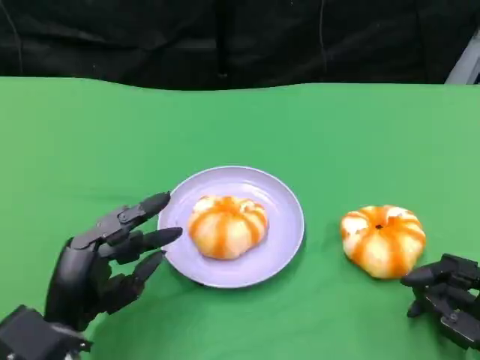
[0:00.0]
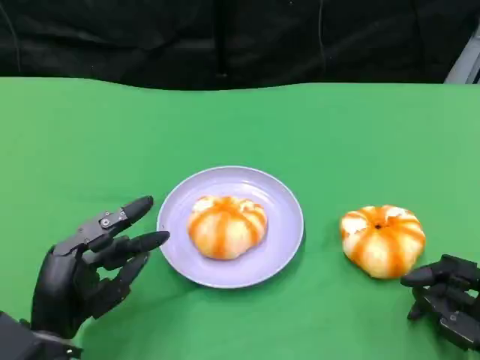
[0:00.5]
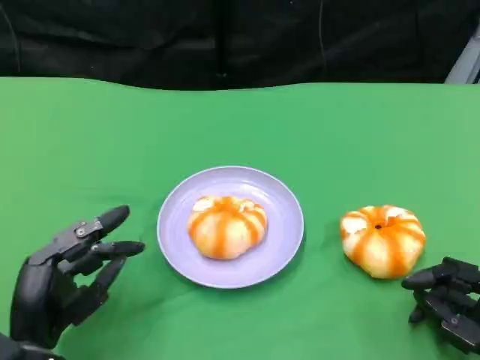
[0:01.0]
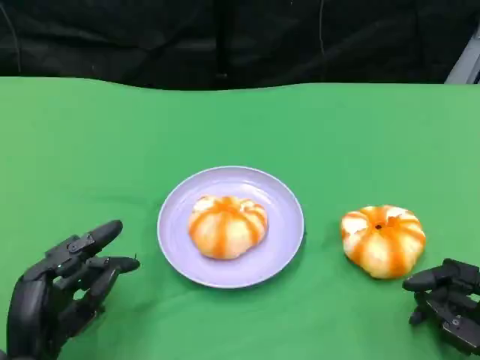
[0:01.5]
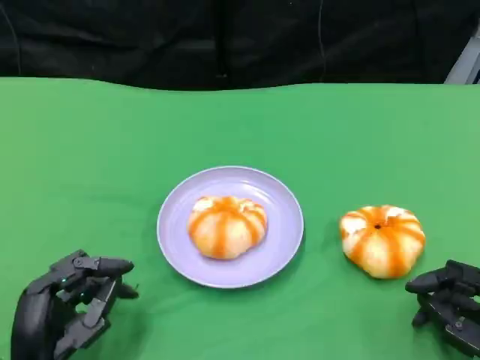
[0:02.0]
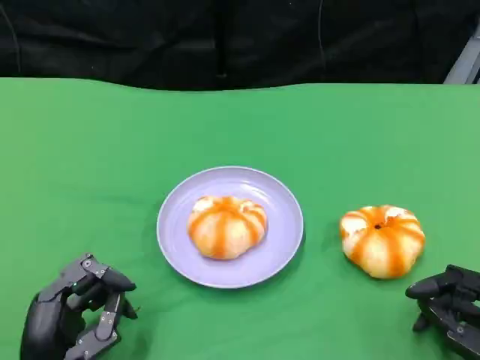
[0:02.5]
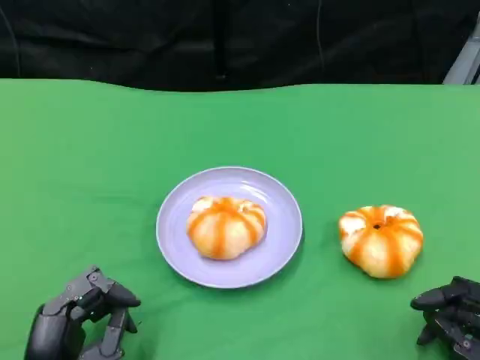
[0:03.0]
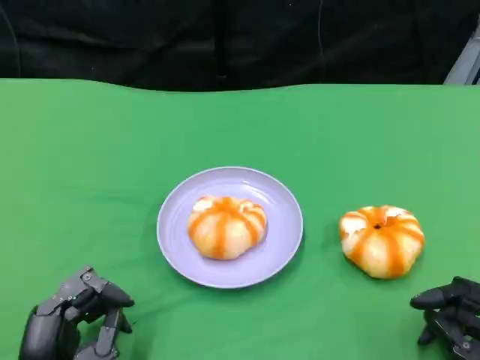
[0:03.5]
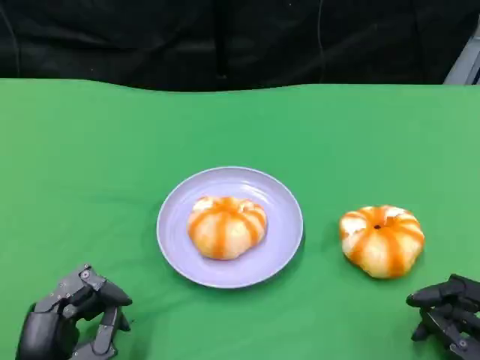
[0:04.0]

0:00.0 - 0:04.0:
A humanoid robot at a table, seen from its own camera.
Task of the whole recording: Grasp the bread from the table and place it into the plate.
0:00.0 - 0:02.0: The left hand moves some 5 cm.
0:02.0 - 0:04.0: There are only small adjustments of the hands.

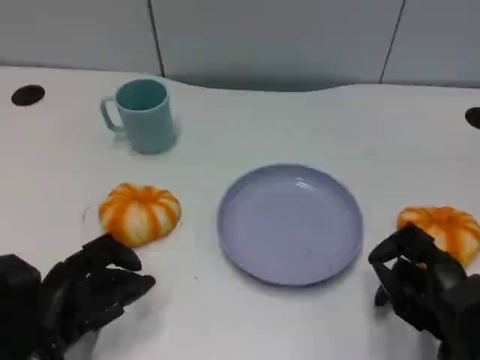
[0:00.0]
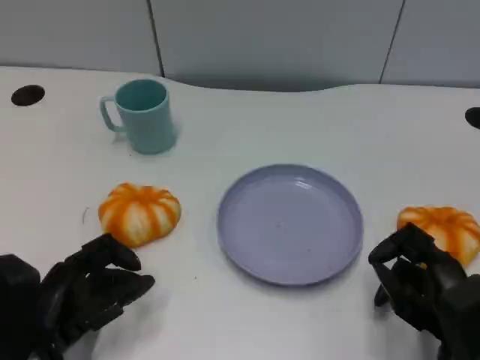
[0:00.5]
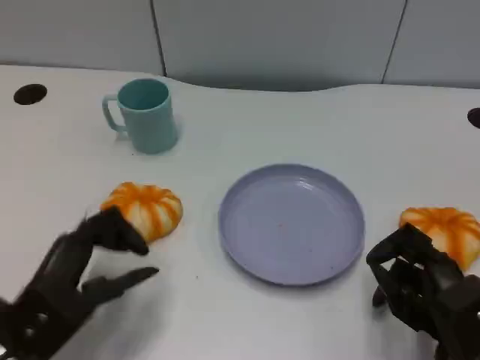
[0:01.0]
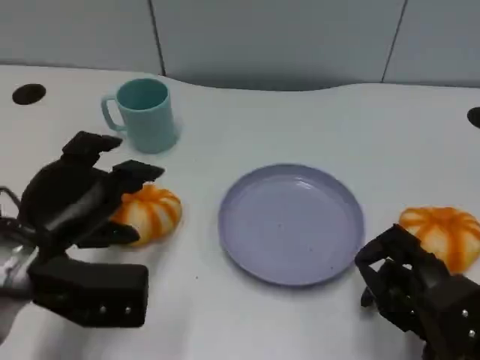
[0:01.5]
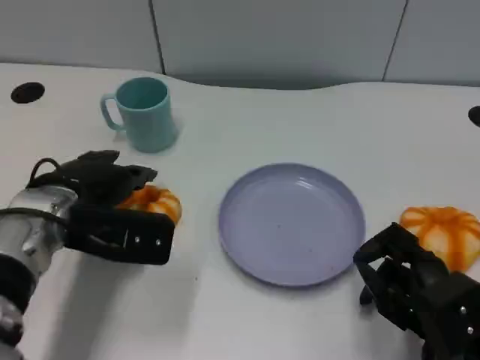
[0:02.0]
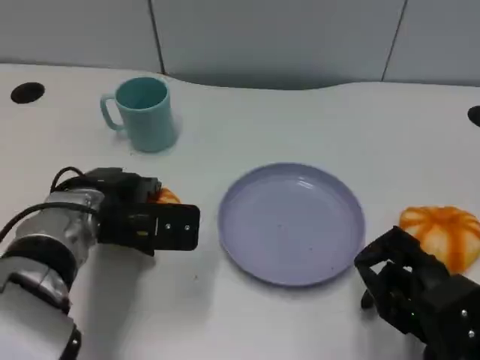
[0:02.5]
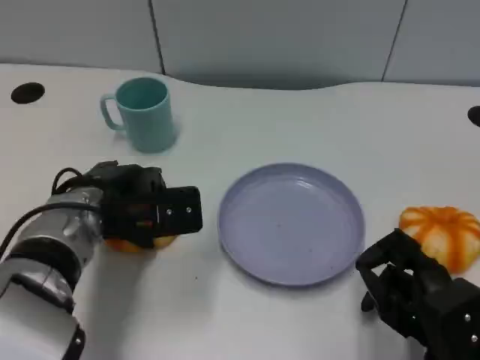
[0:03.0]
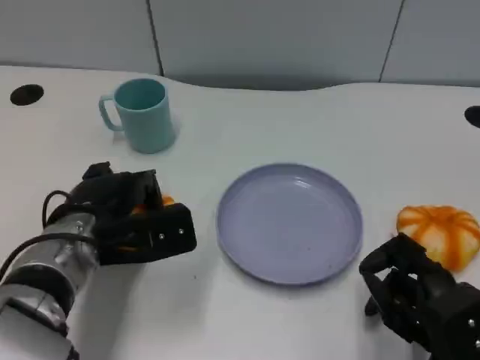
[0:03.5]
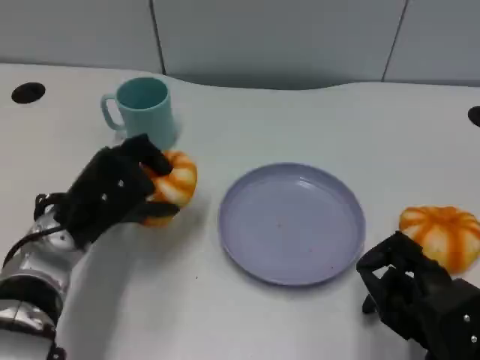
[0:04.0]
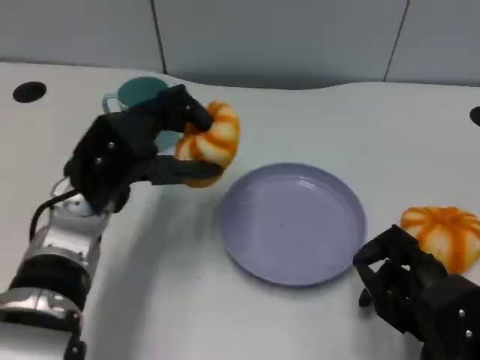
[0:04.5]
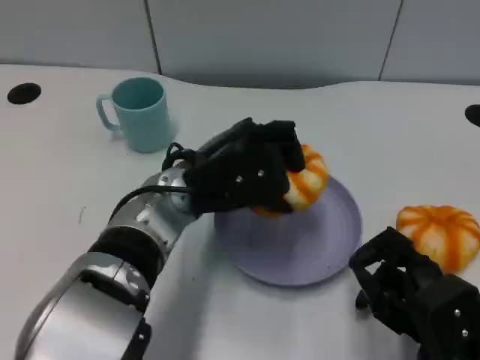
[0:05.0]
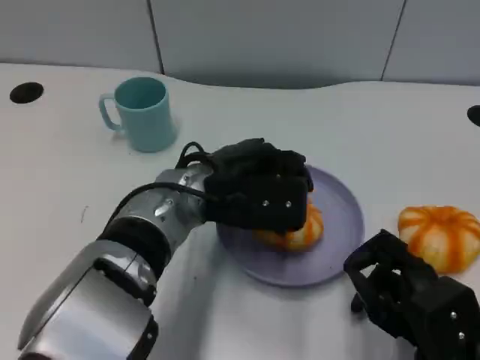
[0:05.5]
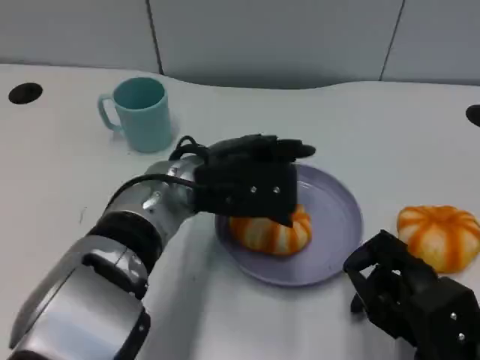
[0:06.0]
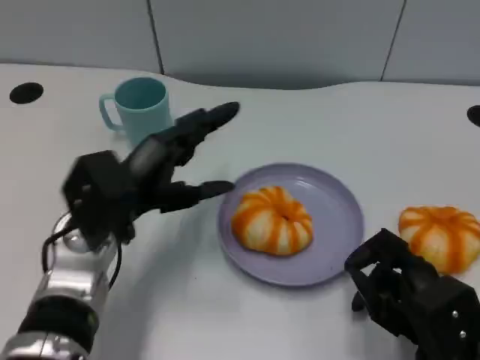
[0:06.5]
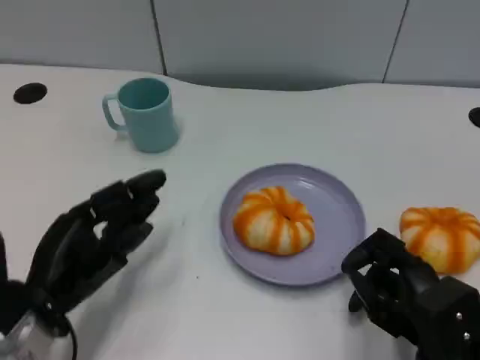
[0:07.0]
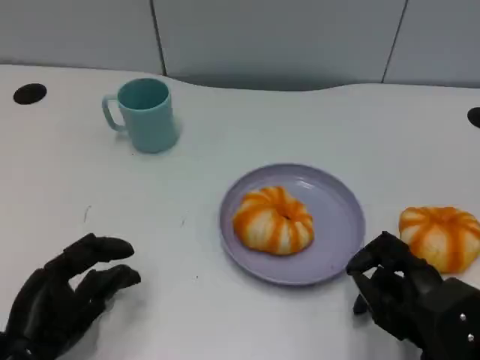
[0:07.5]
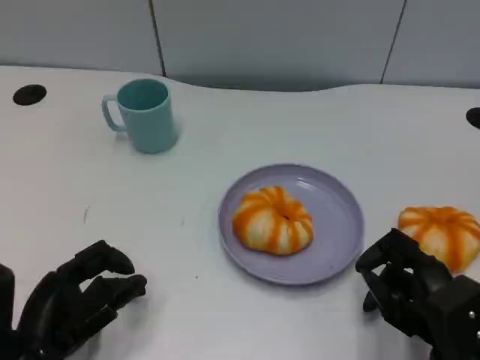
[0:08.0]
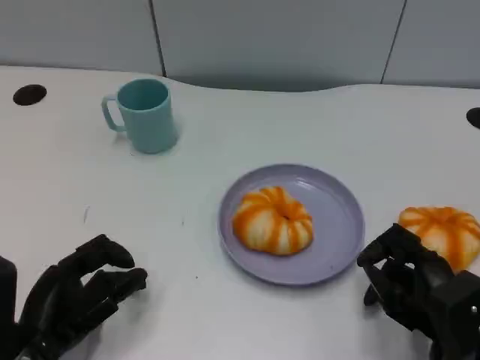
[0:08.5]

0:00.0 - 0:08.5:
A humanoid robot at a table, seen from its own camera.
Task of the whole recording: Grasp the bread from the table and place it into the plate.
0:00.0 - 0:02.0: The left hand shifts roughly 15 cm forward and upward.
0:04.0 - 0:06.5: The left hand travels to the right and back again, about 15 cm each way.
0:06.5 - 0:08.5: The left hand goes about 15 cm backward, to the left and downward.

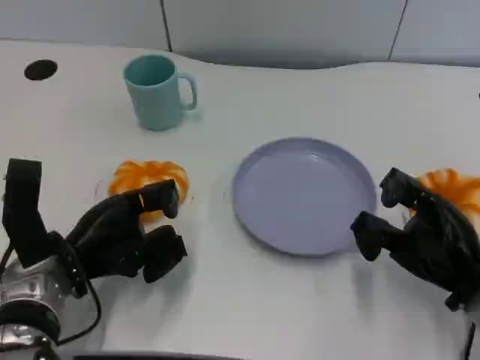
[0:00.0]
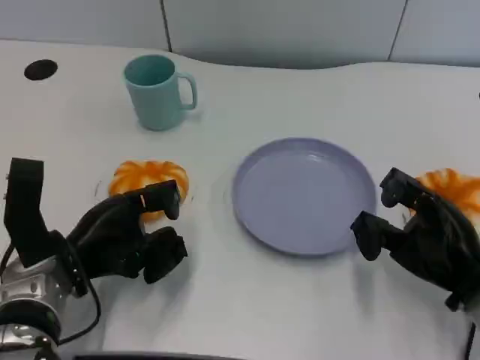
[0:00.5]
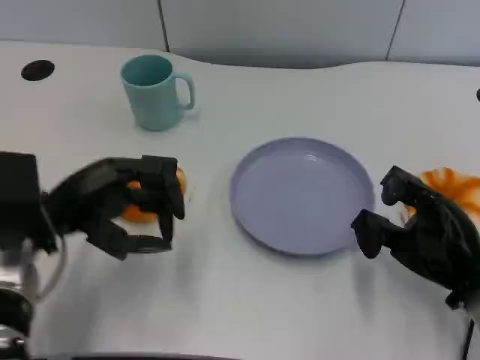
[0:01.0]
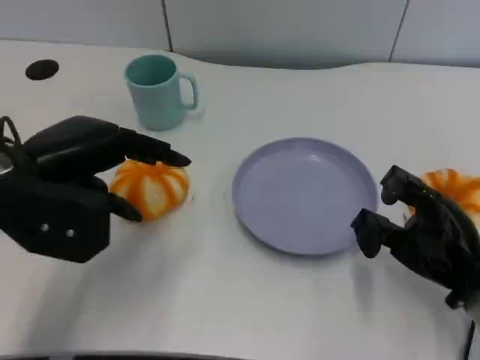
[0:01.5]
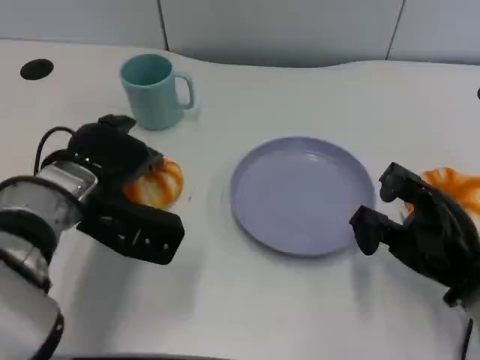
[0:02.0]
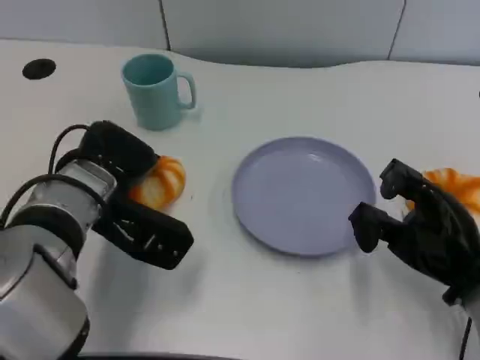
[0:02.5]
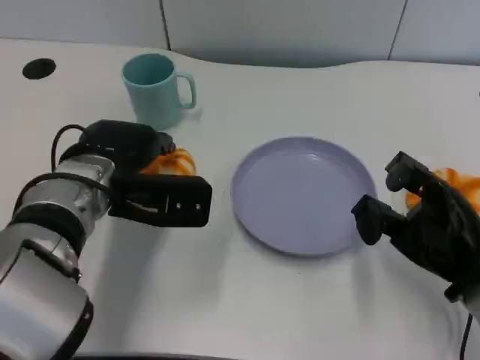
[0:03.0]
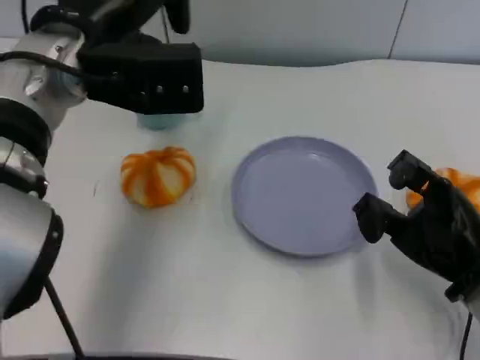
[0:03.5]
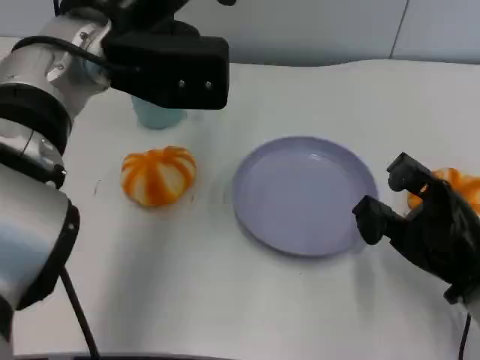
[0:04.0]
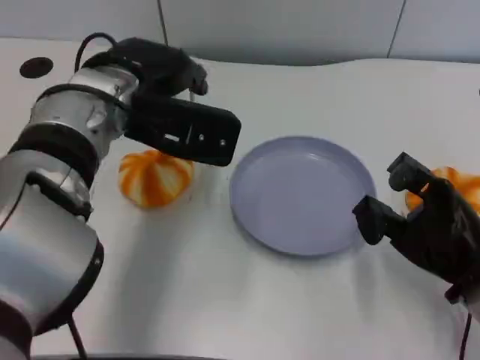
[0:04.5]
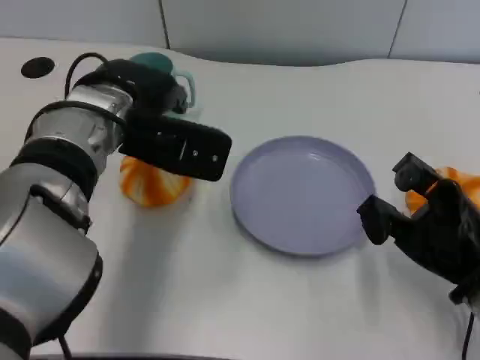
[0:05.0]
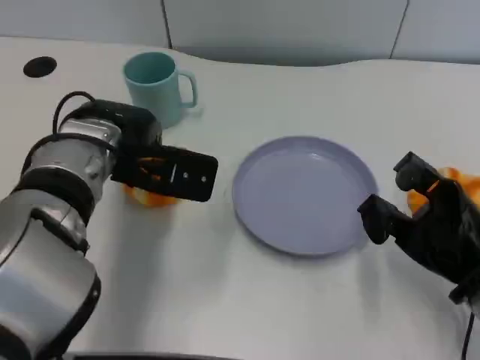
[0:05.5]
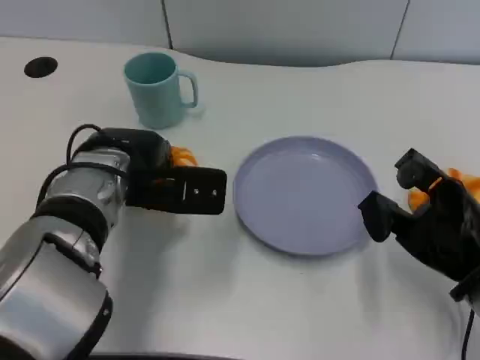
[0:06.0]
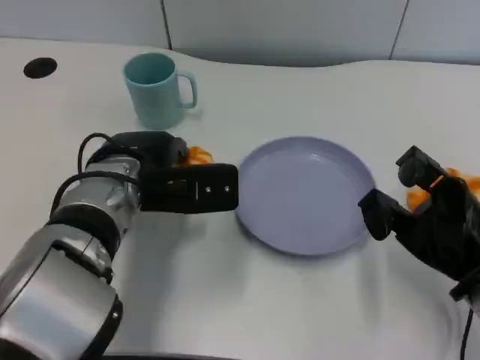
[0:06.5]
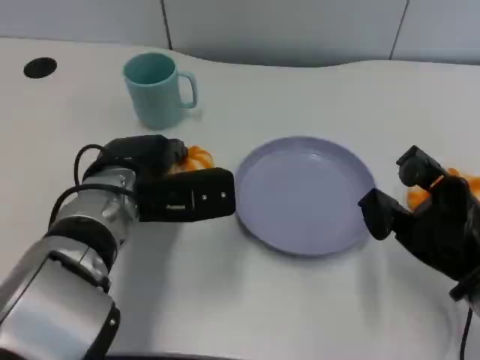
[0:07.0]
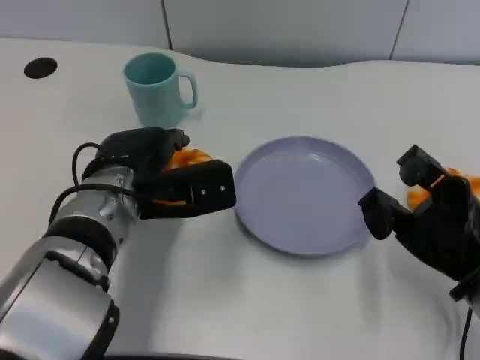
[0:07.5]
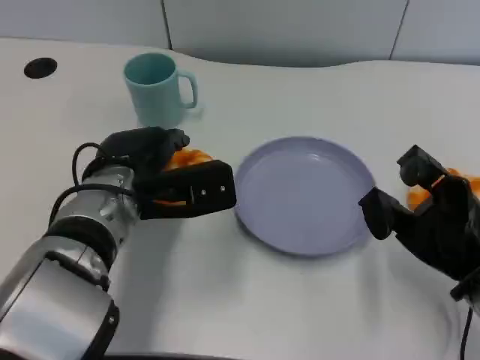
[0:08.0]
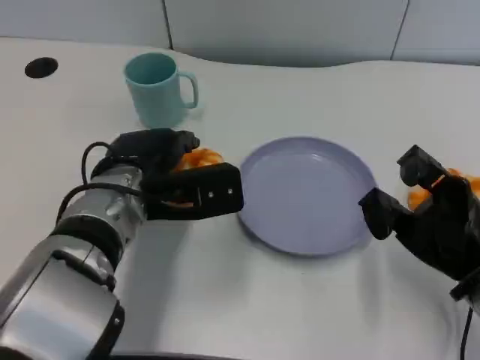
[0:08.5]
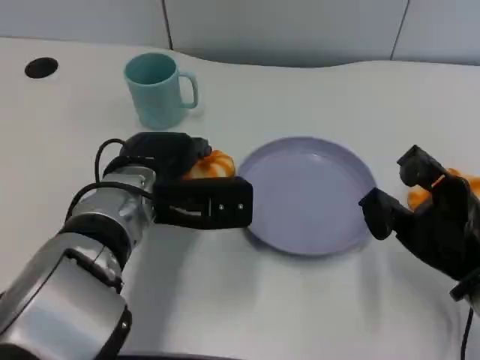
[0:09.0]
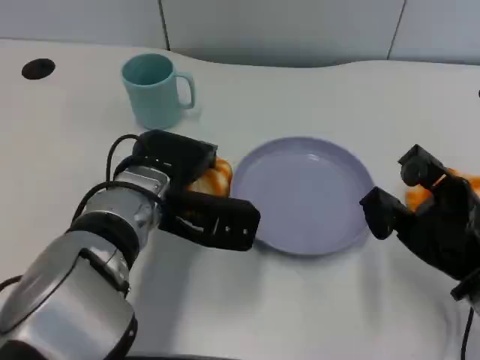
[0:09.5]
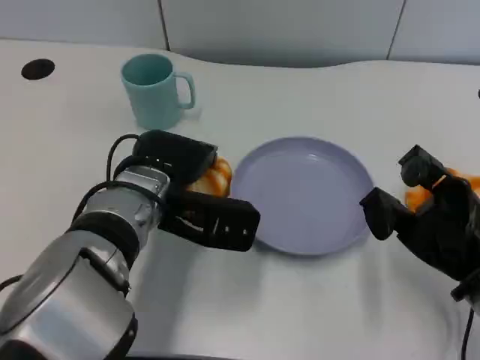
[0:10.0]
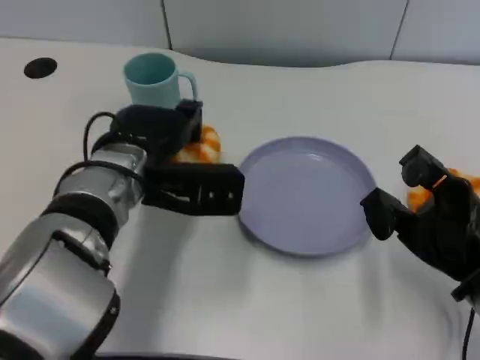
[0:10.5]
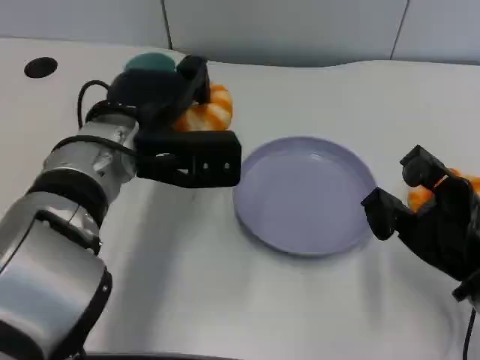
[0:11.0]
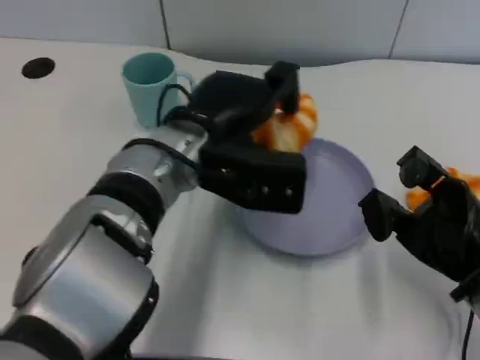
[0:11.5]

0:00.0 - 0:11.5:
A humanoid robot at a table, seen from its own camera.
Task of the whole recording: Grasp the bread from the table and place it into the plate.
0:00.0 - 0:02.0: The left hand moves upward, about 5 cm.
0:02.0 - 0:04.0: The left hand travels upward by some 15 cm.
0:04.0 - 0:06.0: The left hand heads downward, covering roughly 15 cm.
0:06.0 - 0:07.5: The hands make only small movements.
0:09.5 - 0:11.5: The left hand shifts approximately 5 cm to the right.

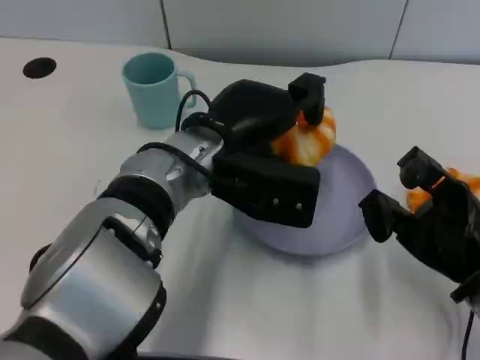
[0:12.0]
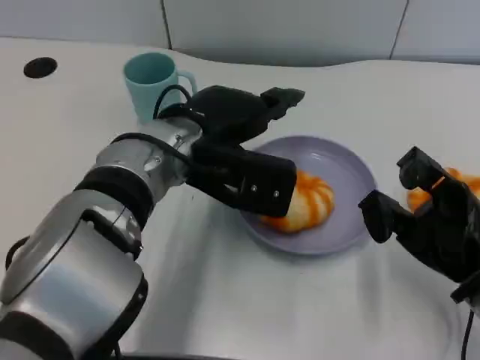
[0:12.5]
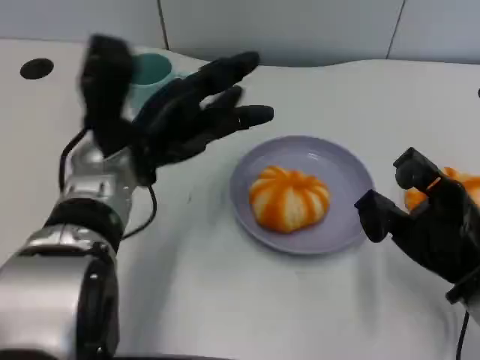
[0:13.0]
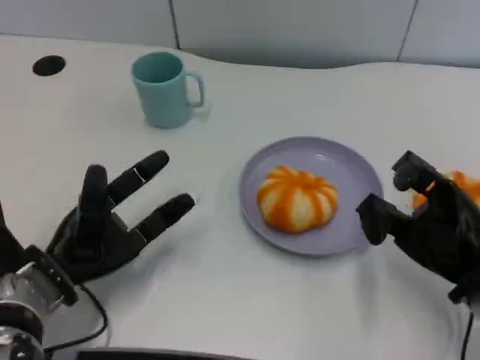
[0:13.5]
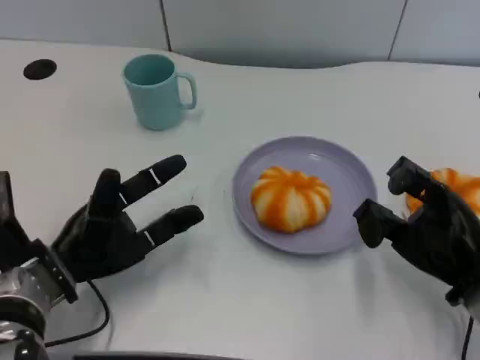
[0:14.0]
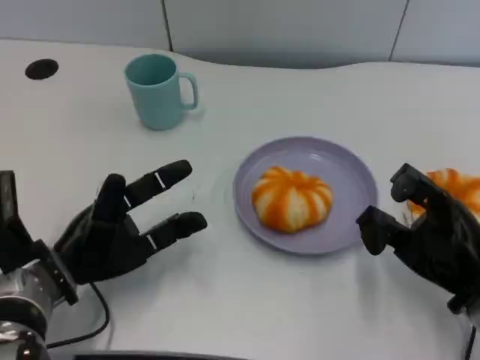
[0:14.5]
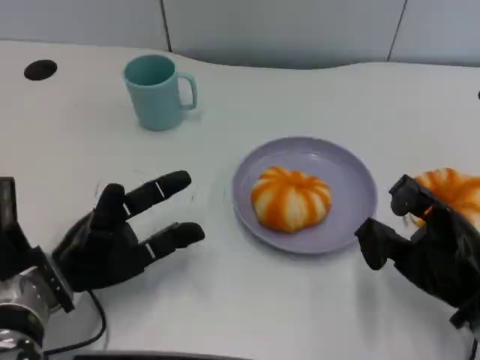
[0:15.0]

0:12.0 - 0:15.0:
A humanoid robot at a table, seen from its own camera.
Task of the whole recording: Grasp the bread from the table and place it into the plate.
0:12.0 - 0:13.5: The left hand is displaced to the left and downward by roughly 20 cm.
0:13.5 - 0:15.0: The hands stay close to where they were, moving slightly.
